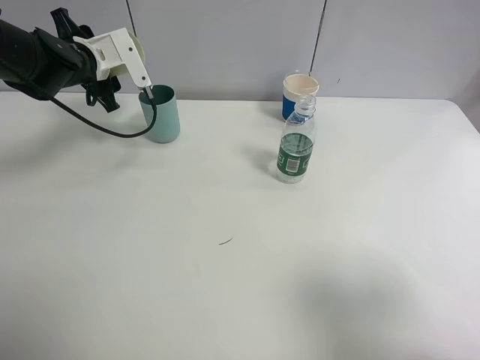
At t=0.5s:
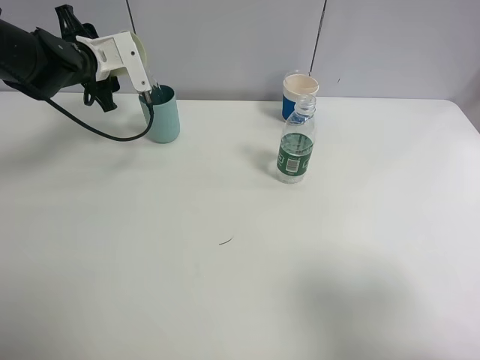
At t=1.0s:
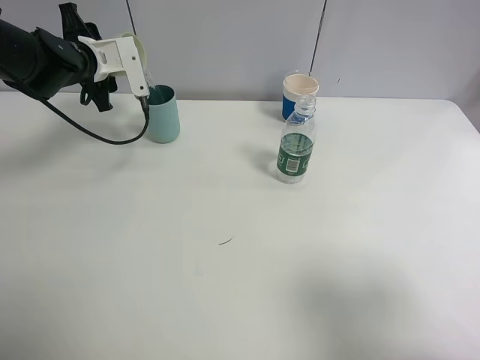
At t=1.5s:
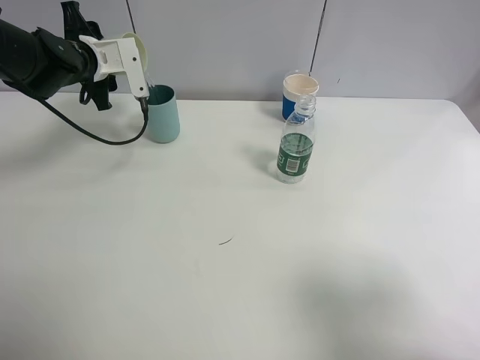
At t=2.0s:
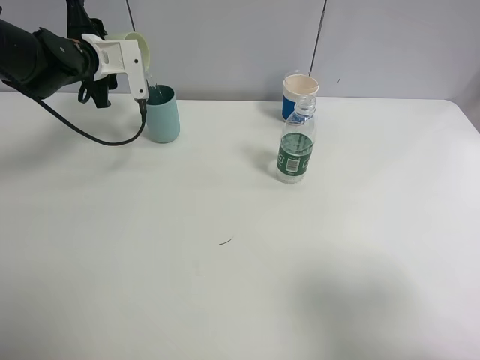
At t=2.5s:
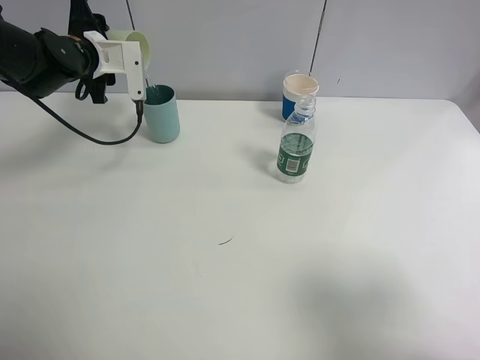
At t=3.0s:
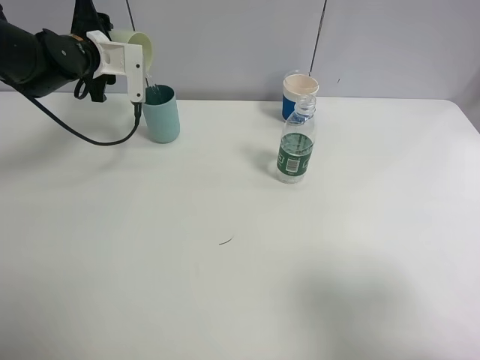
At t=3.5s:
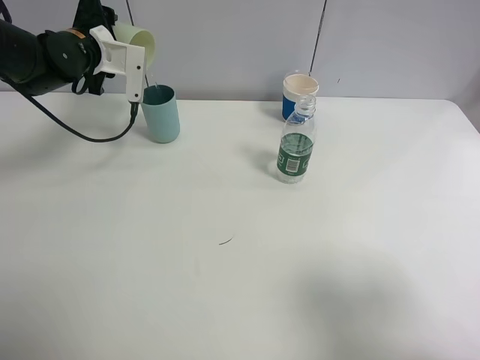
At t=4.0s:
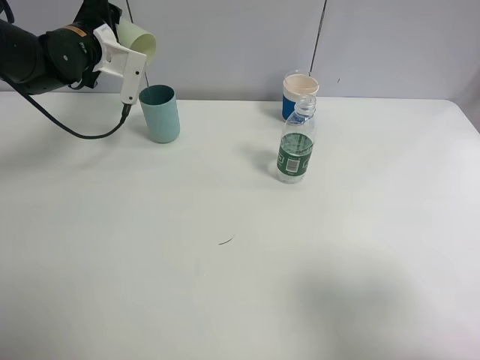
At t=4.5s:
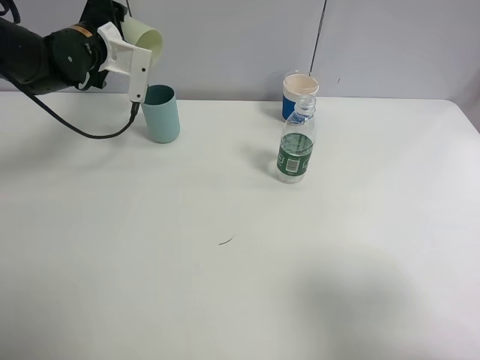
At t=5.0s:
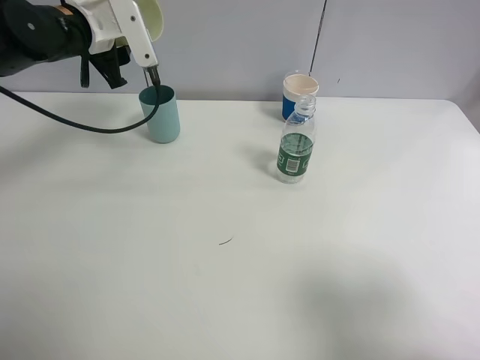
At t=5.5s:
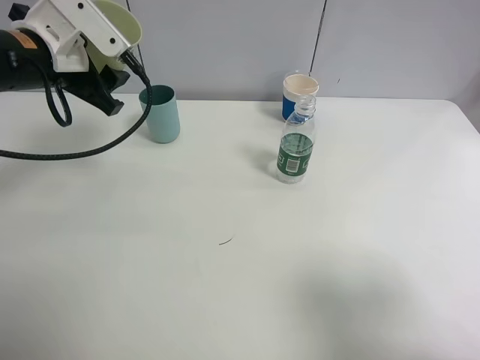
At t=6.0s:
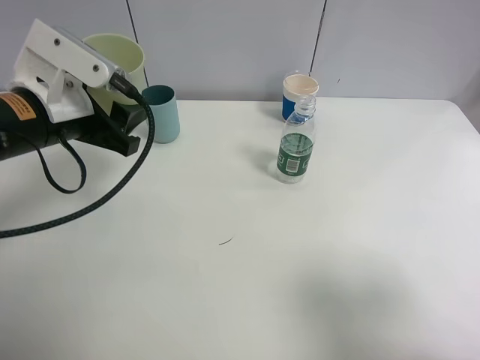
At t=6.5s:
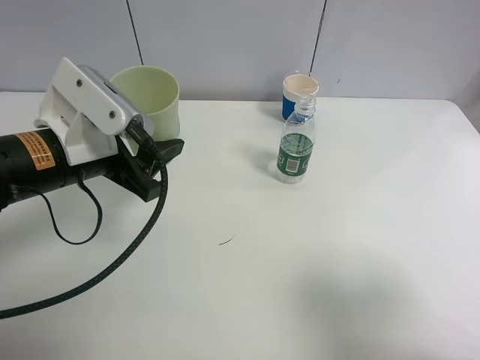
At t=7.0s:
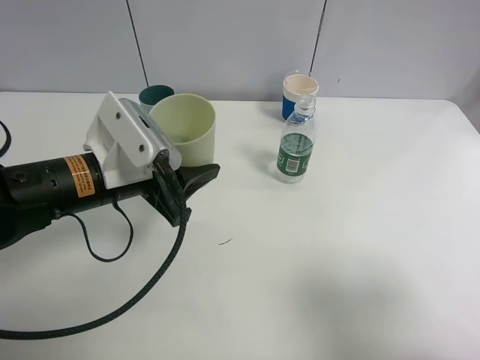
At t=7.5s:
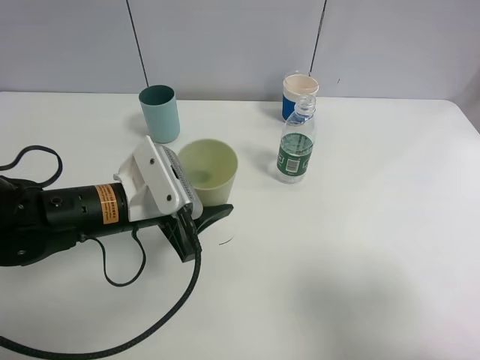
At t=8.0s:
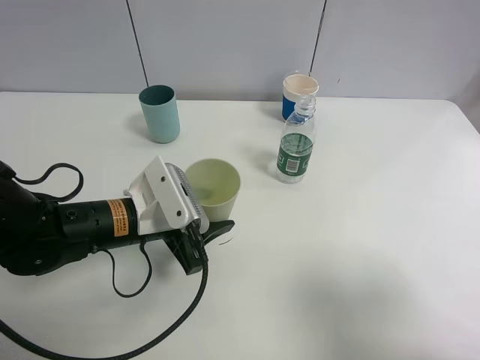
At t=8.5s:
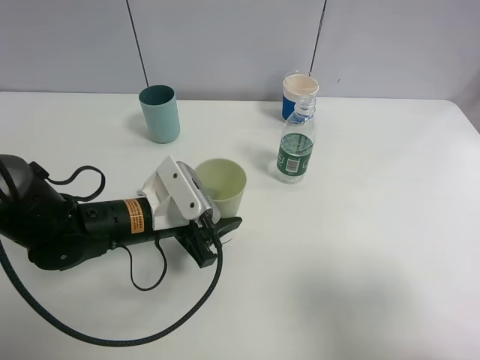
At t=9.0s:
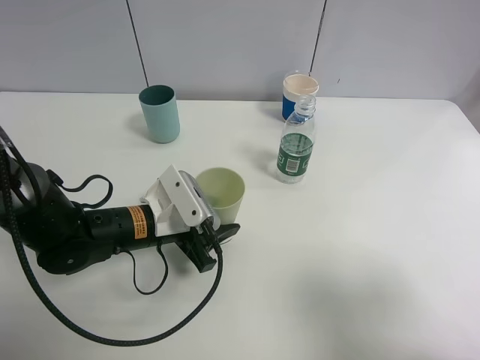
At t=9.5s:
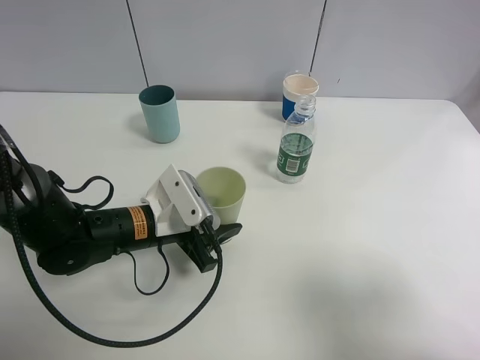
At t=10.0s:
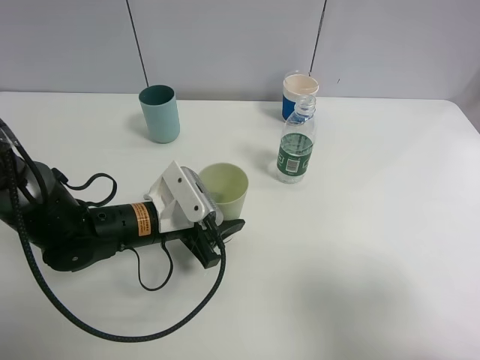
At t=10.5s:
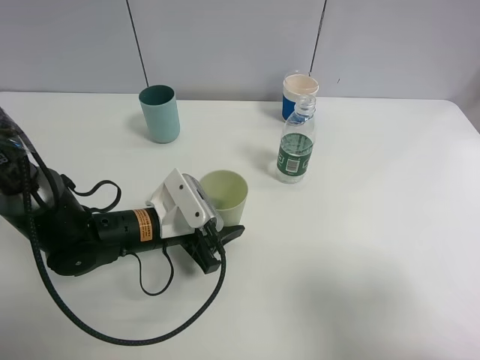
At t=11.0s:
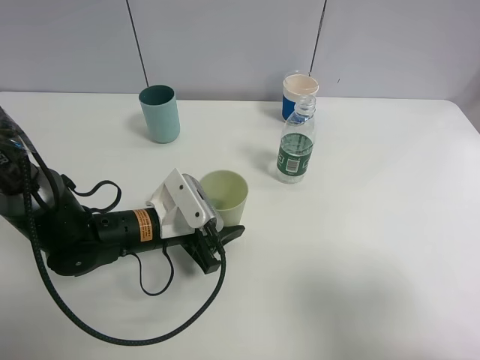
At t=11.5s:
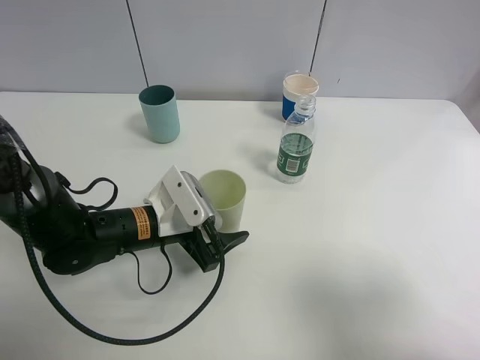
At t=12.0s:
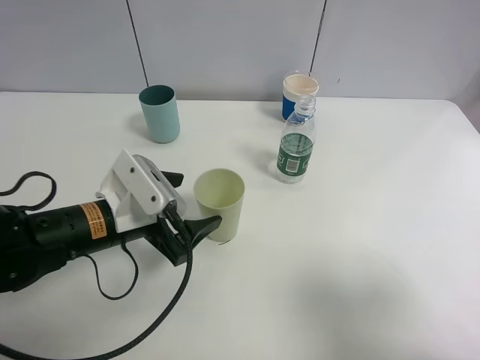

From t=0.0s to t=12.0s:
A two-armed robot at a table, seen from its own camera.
Task of the whole recording: use a clamp to hold the bottle of the drink, pour the beverage into a random cup, then clamp the cup containing the drink and pour the drink into another random cup.
Step, from t=0.0s to t=4.5s: Pour water into the blue plastic cup with left gripper.
From t=0.0s to t=2.0s: The grippers make only small movements.
From t=4.0s to t=6.0s: The left gripper travels backward by roughly 20 cm.
From t=6.0s to t=8.0s: The left gripper is displaced downward and to the right by some 15 cm.
From t=8.0s to t=10.0s: There are only small adjustments of the grippers.
From t=10.0s to t=12.0s: The left gripper ends up approximately 5 cm from where it was, and opens.

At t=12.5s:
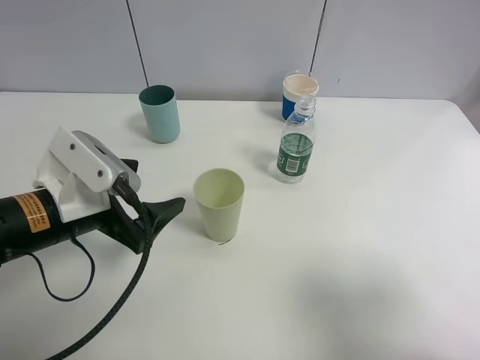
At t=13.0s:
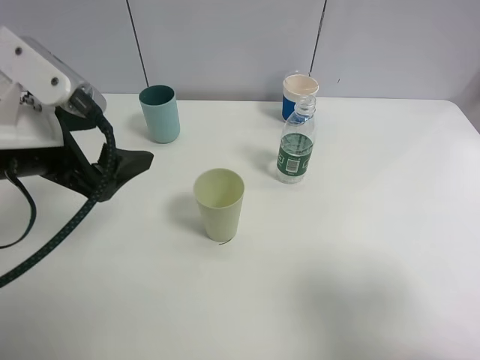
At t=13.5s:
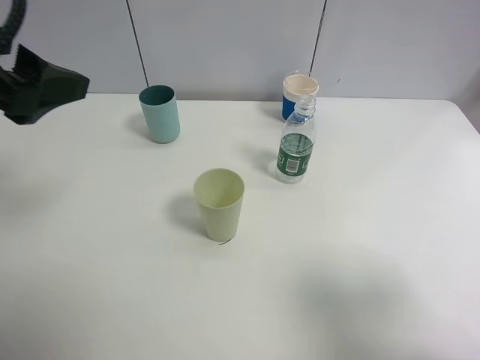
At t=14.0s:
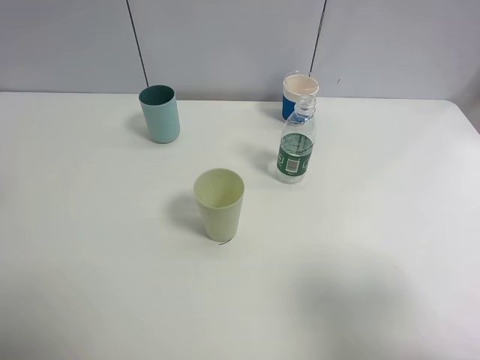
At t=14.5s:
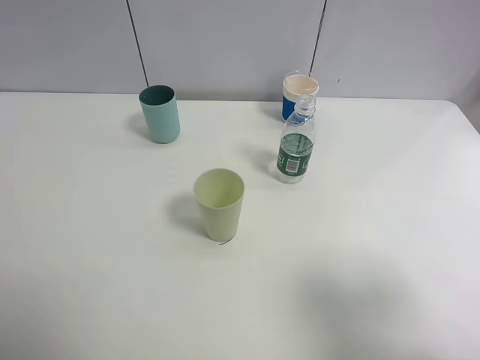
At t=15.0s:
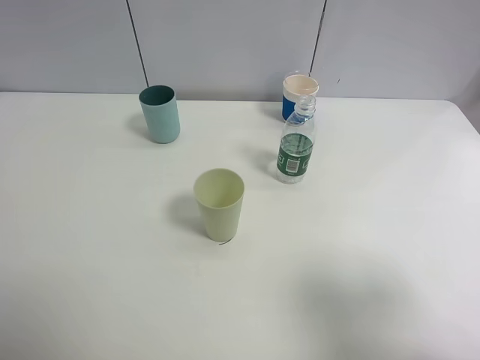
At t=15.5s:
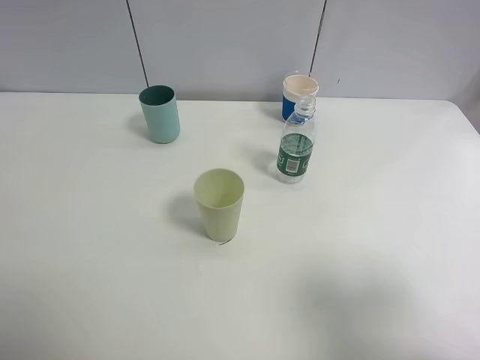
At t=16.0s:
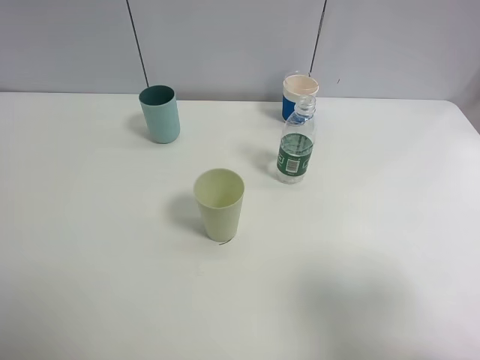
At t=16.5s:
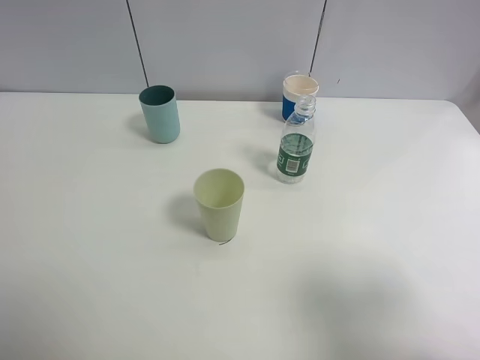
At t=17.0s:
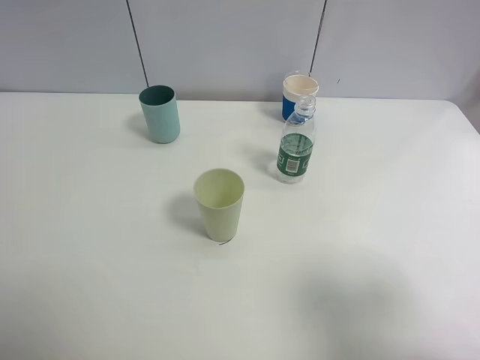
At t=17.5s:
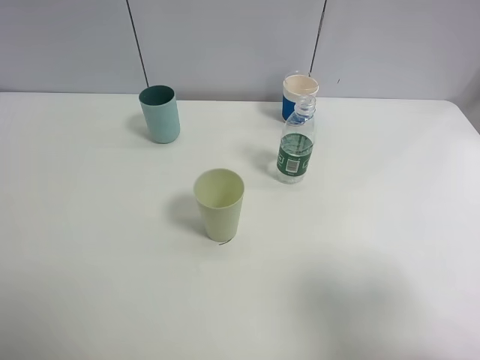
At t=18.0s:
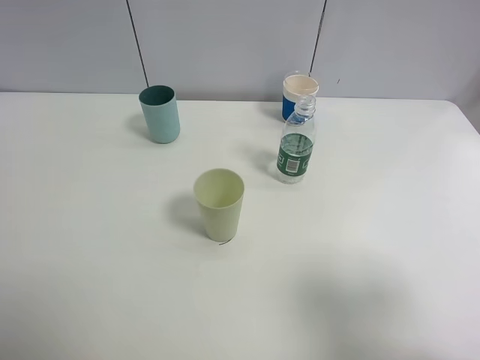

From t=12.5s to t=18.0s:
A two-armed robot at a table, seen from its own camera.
Task of the whole recording: use a clamp to hold the bottle of the drink, pour the beverage into a random cup, then clamp the cup containing the drink and pour the drink into another random cup.
From t=12.5s to t=14.5s: The left gripper shifts about 30 cm upward, to the left and backward.

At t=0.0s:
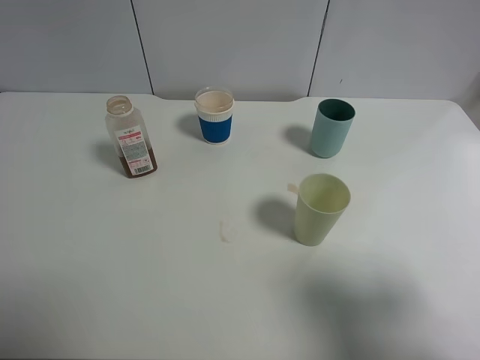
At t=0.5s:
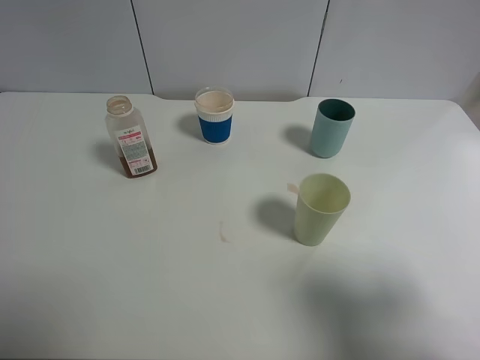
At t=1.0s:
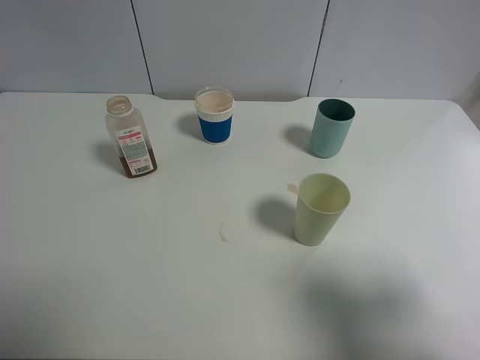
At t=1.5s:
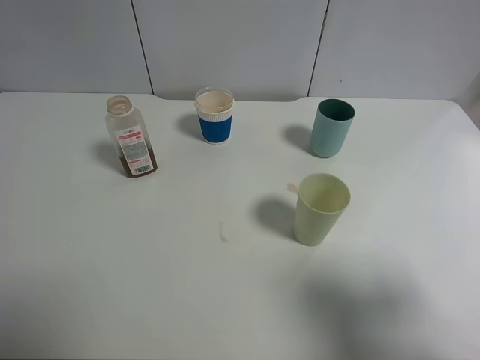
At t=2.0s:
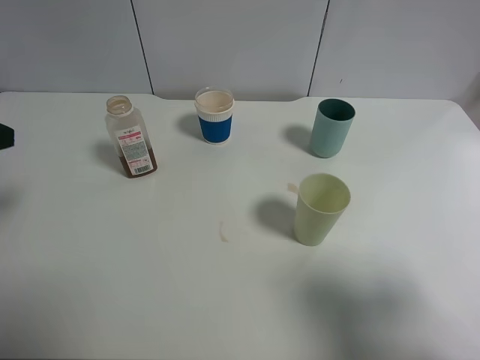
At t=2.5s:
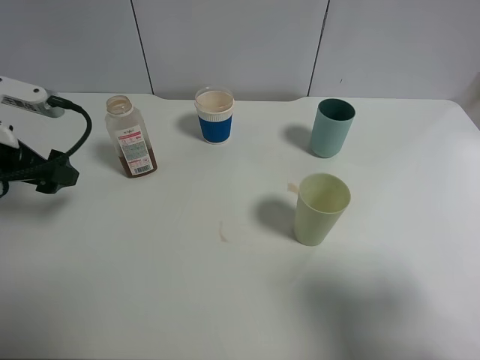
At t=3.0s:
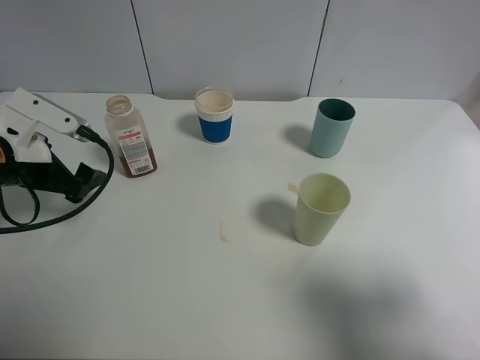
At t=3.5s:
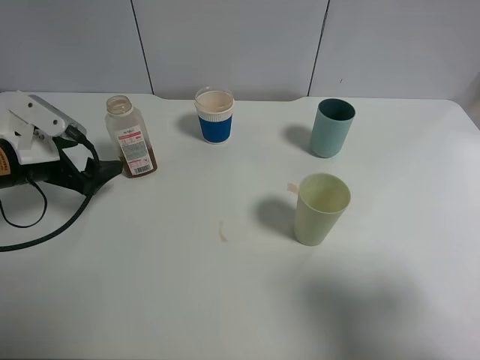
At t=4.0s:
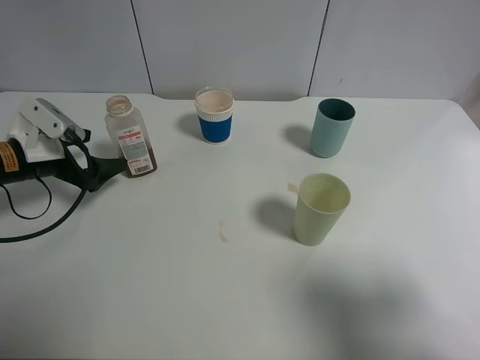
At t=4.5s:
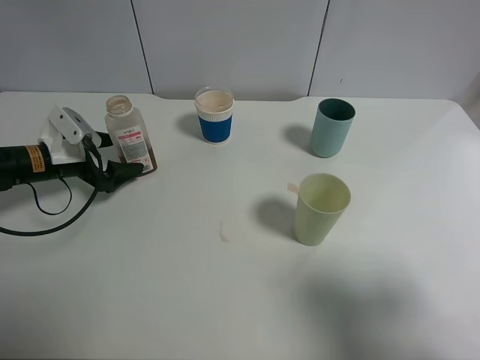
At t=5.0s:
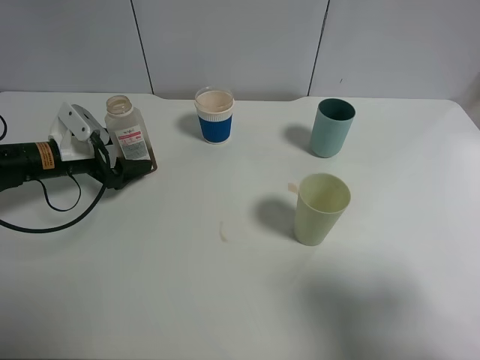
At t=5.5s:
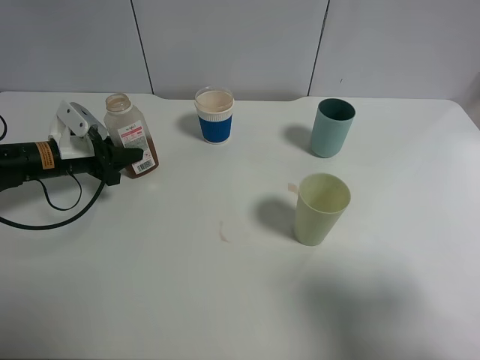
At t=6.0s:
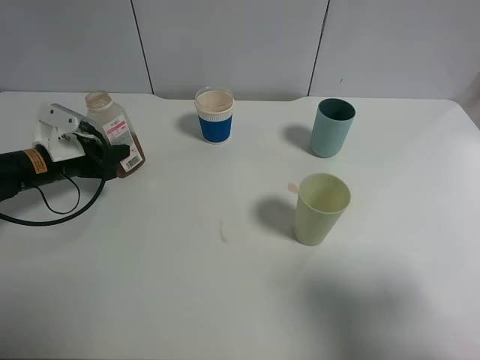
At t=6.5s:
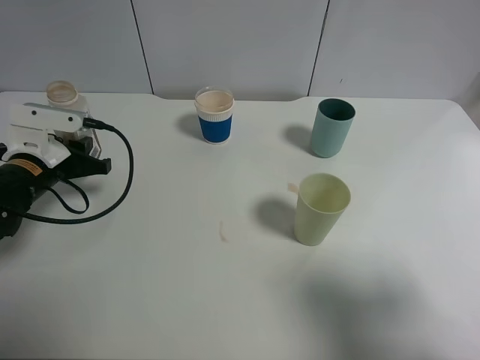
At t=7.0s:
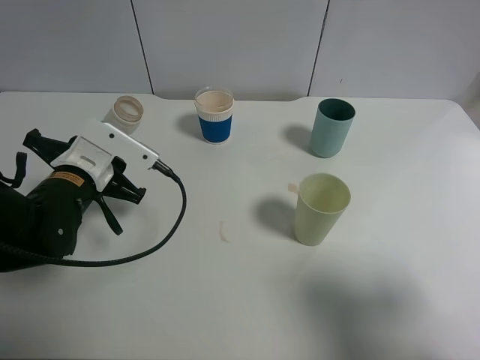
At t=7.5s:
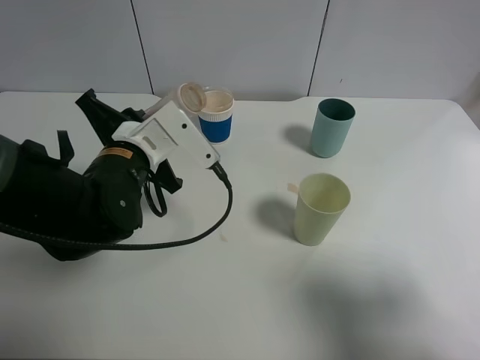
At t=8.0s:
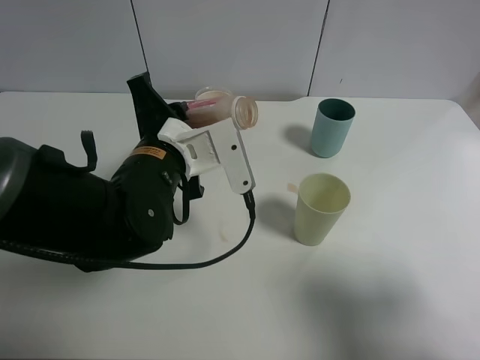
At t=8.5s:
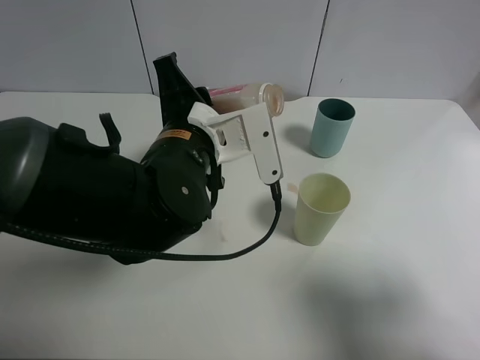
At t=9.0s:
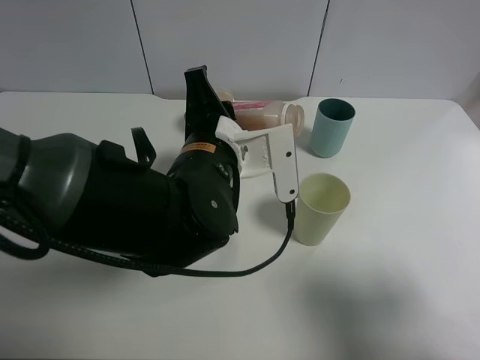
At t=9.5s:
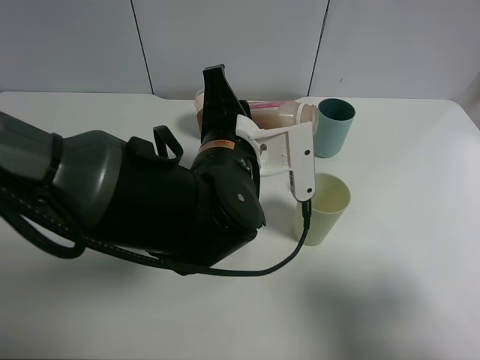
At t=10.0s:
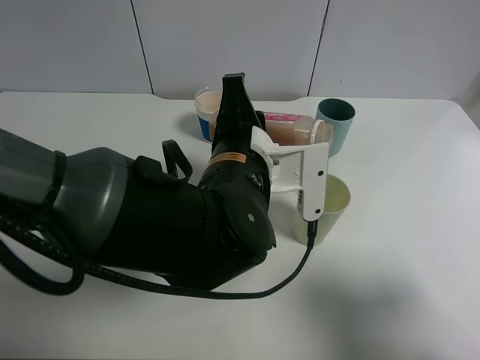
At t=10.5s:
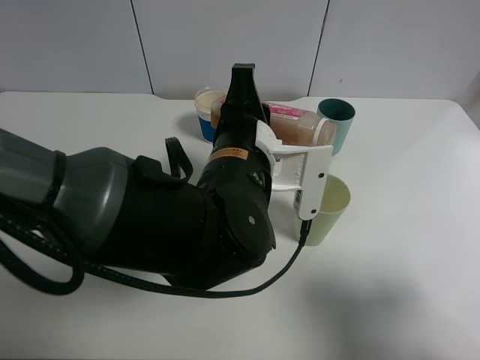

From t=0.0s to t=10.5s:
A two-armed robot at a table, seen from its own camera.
Task of the whole recording: use a clamp to hold the bottle of the drink, pour the beverage into a random cup, then clamp the cup containing the drink and pour the drink into another random cup.
Step, from t=0.0s to t=6.5s: Pick up the drink bottle with left gripper.
From t=2.0s to t=4.0s: The left gripper travels downward and forward by some 20 cm.
From t=4.0s to t=6.5s: The left gripper closes.
From t=6.5s to t=8.5s: The left gripper travels to the right by approximately 20 cm.
From t=8.5s to t=10.5s: The left gripper goes some 5 cm to the right.
